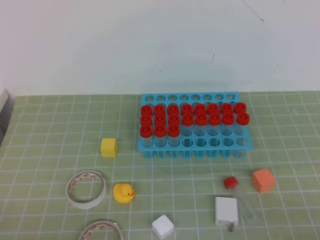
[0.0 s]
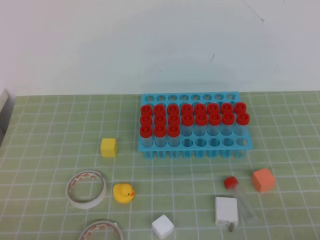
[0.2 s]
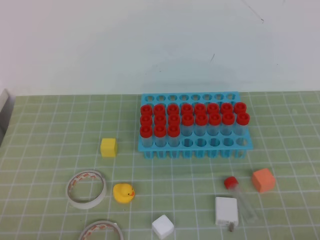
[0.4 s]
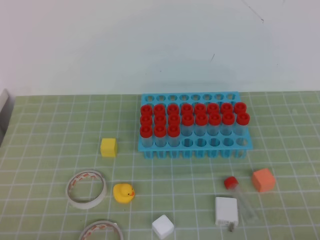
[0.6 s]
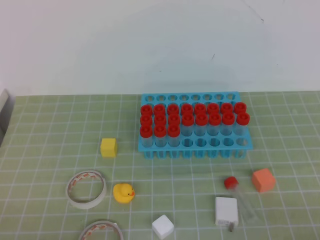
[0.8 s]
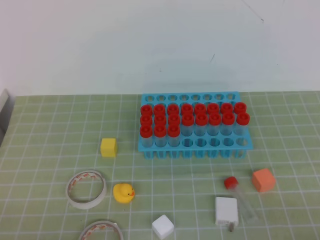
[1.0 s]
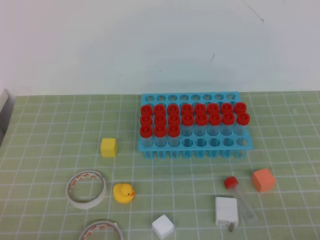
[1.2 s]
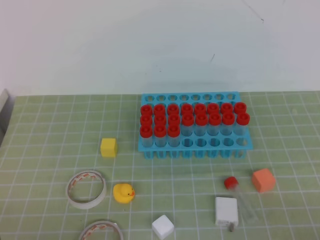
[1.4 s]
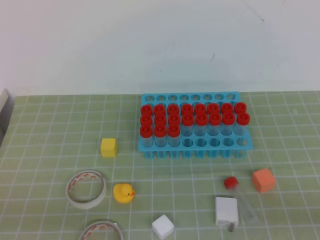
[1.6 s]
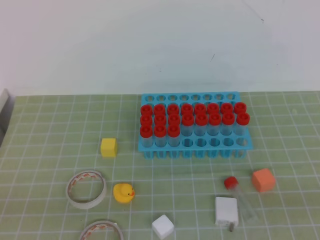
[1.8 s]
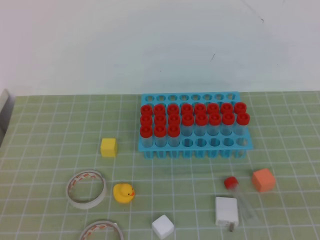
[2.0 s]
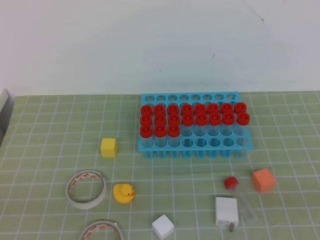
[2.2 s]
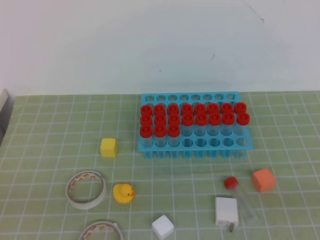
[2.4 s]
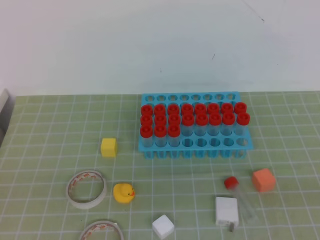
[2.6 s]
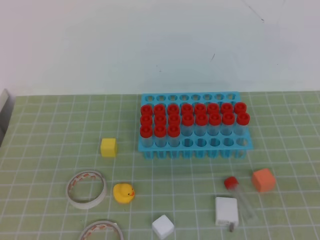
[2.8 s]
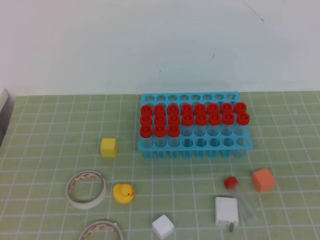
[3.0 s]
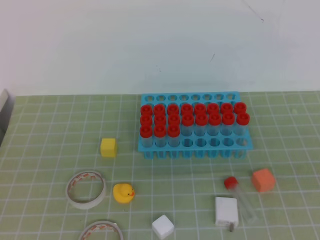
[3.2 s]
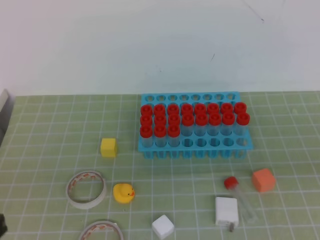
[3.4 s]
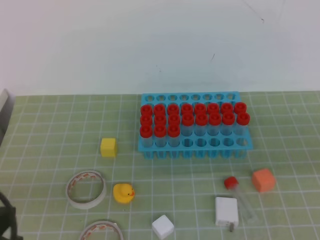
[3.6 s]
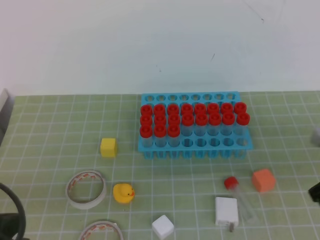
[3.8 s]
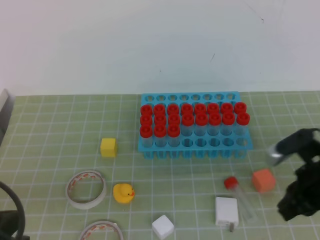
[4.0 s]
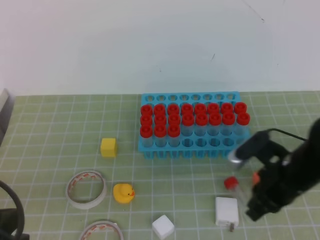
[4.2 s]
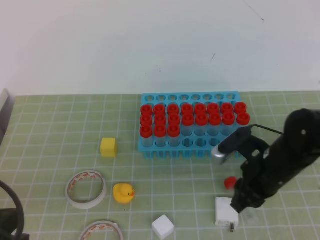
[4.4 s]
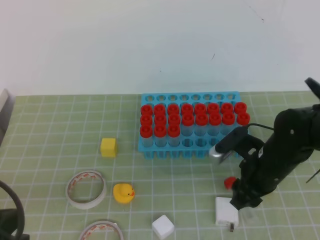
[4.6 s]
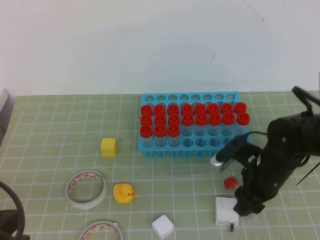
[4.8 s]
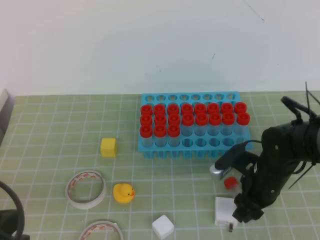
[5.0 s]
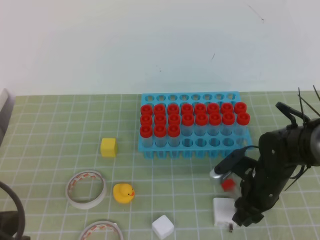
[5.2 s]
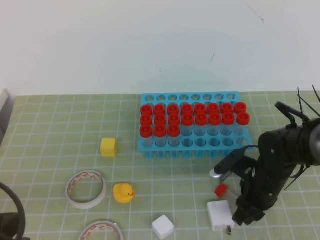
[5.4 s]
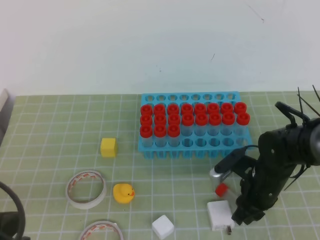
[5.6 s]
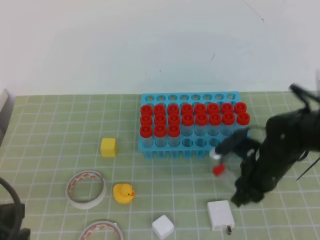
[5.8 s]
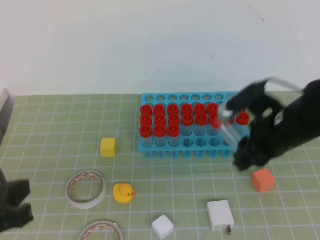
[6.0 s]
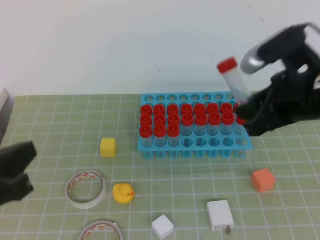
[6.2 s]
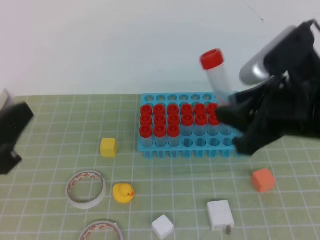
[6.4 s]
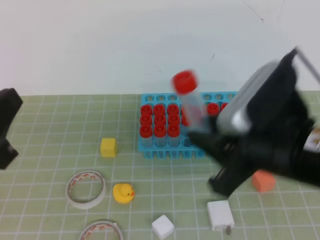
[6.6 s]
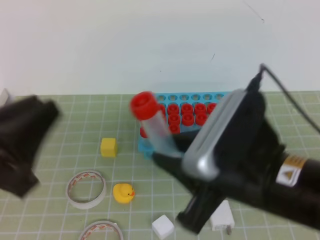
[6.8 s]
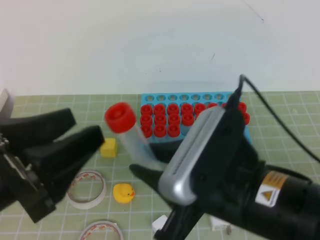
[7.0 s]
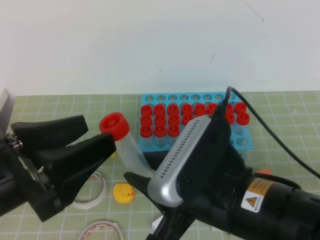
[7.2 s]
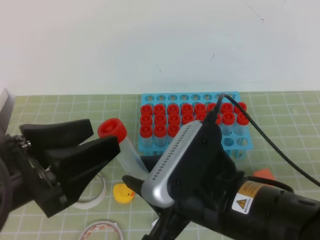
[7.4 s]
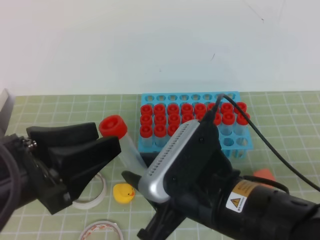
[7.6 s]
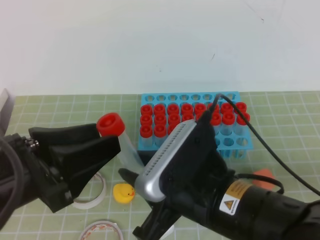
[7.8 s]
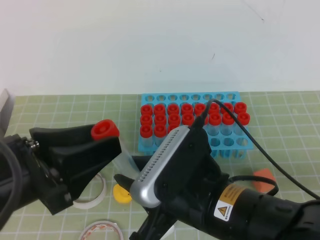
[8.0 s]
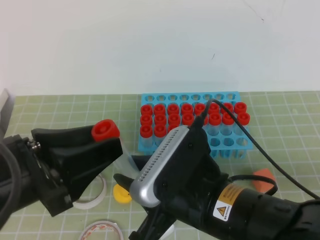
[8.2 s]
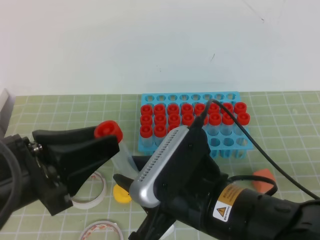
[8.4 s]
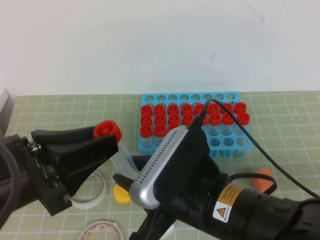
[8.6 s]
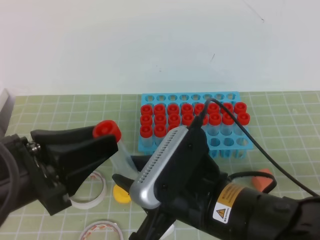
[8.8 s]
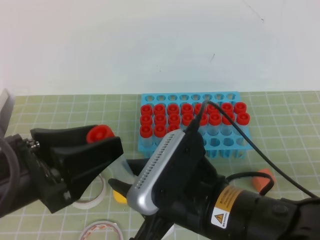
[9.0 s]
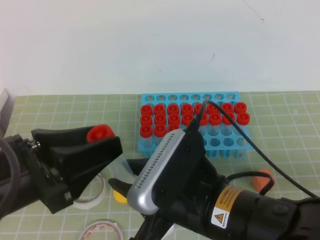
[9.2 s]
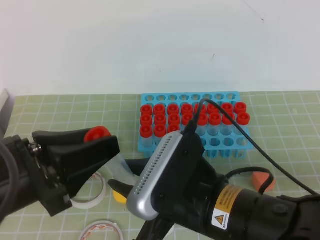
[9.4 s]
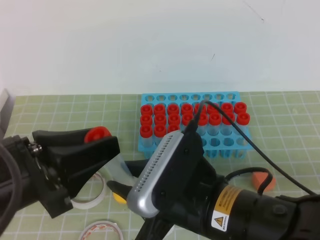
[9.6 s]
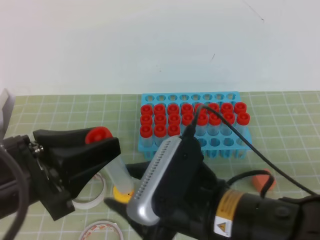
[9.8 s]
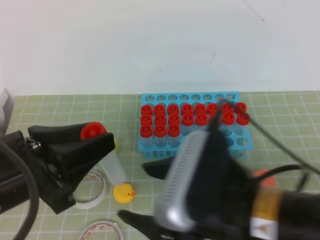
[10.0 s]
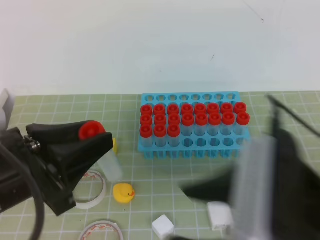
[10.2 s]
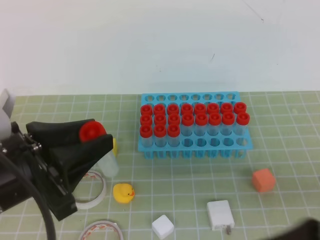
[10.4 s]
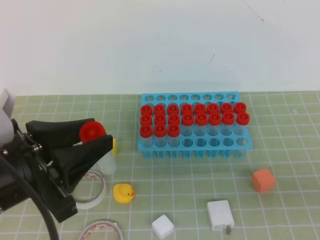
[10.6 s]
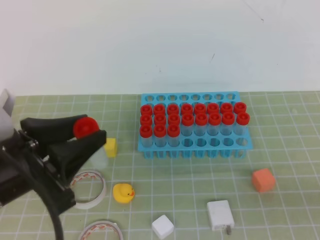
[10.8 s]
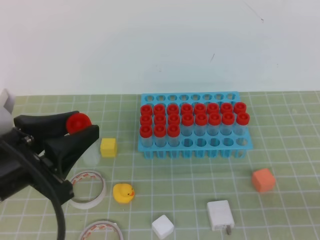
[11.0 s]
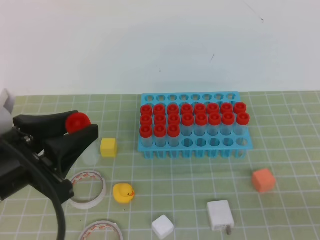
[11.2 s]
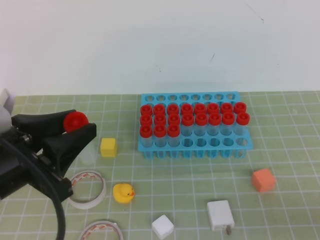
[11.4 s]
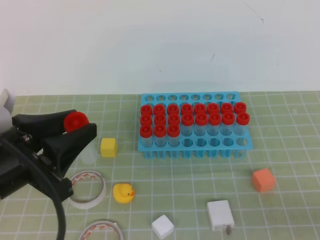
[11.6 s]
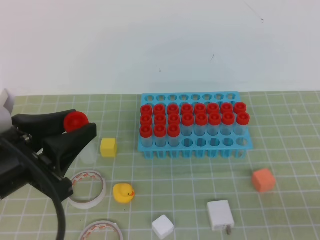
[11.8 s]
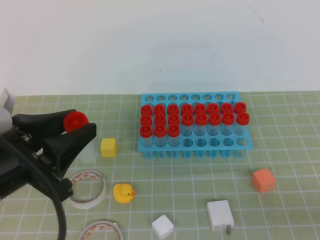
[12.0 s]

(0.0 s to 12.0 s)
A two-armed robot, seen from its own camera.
3.0 s - 4.4 s: The right gripper travels forward, to the left and downward by roughly 30 cm, and opens its fingers; the left gripper shifts some 10 cm downward and forward.
4.4 s - 6.0 s: The right gripper heads upward, covering approximately 5 cm.
6.0 s - 7.6 s: The right gripper goes approximately 20 cm backward, to the left and upward; the left gripper ends up about 5 cm from where it was, and opens.
7.6 s - 9.0 s: The grippers make only small movements.
9.0 s - 10.4 s: The right gripper is displaced to the right, backward and upward by about 15 cm, and opens, then closes once more.
10.4 s - 12.0 s: The right gripper travels to the right and backward by roughly 10 cm, and closes up.

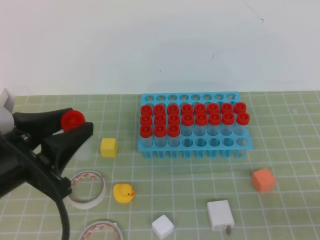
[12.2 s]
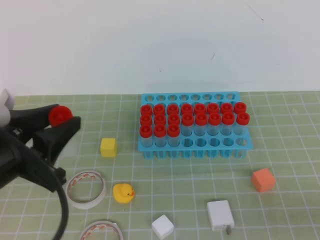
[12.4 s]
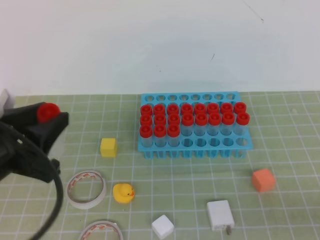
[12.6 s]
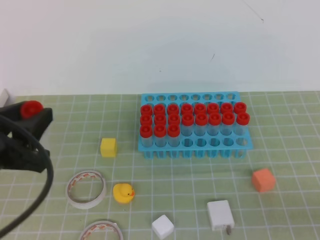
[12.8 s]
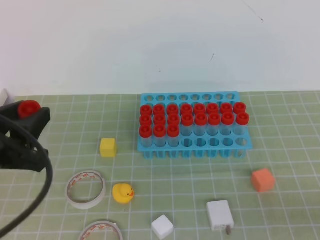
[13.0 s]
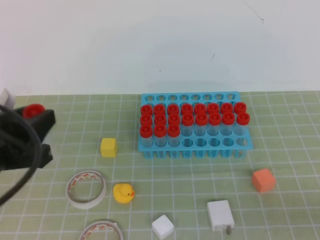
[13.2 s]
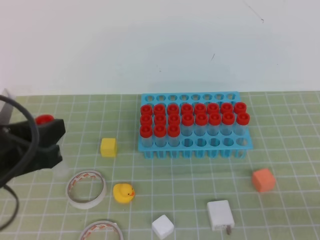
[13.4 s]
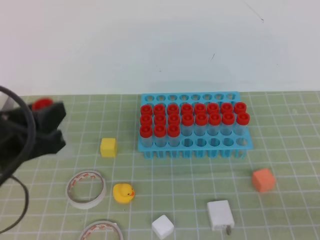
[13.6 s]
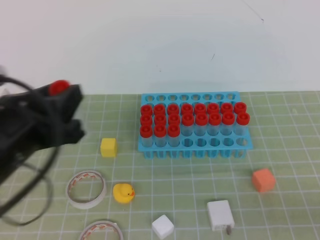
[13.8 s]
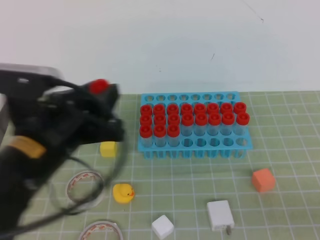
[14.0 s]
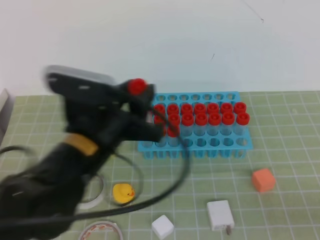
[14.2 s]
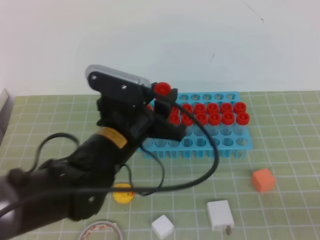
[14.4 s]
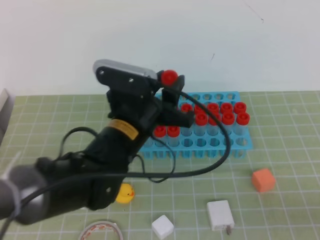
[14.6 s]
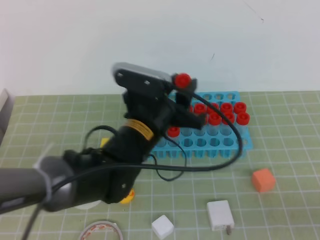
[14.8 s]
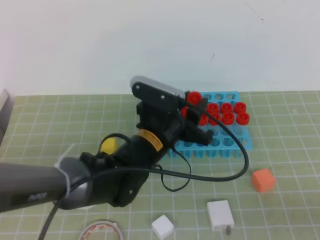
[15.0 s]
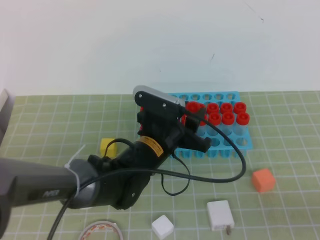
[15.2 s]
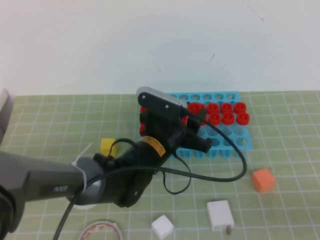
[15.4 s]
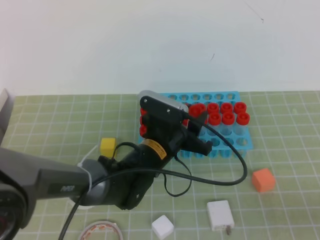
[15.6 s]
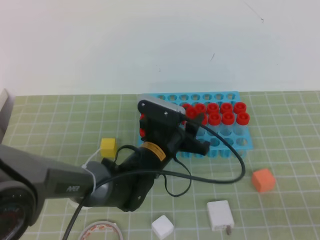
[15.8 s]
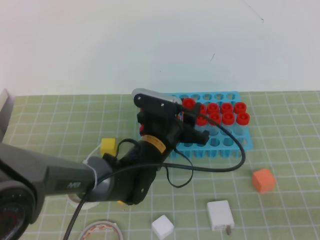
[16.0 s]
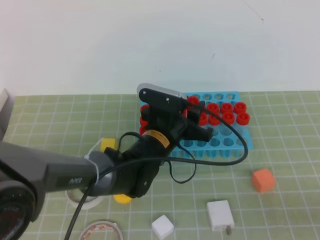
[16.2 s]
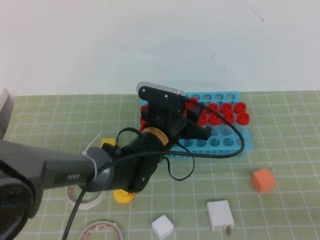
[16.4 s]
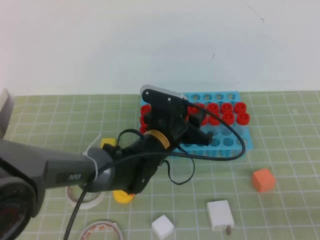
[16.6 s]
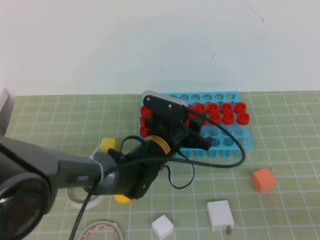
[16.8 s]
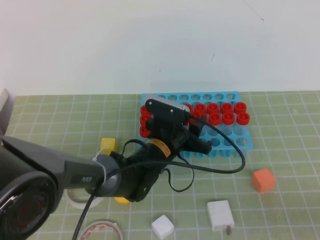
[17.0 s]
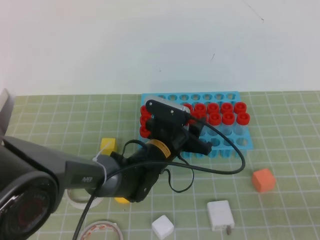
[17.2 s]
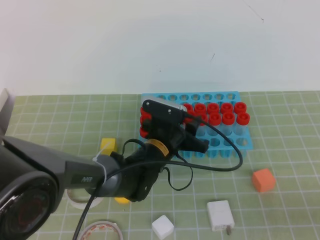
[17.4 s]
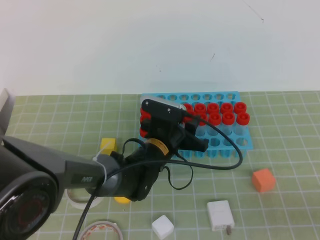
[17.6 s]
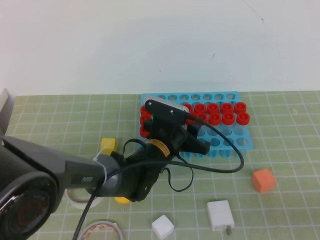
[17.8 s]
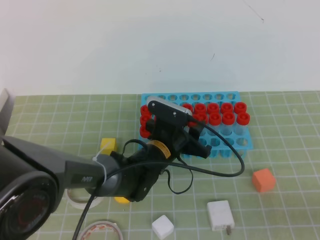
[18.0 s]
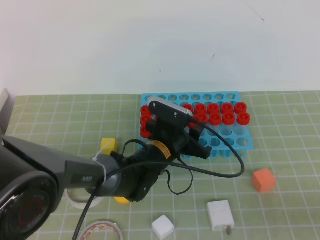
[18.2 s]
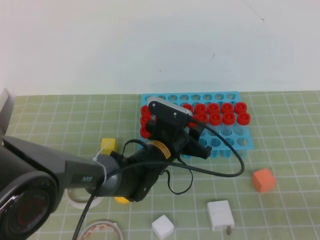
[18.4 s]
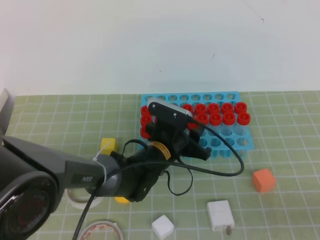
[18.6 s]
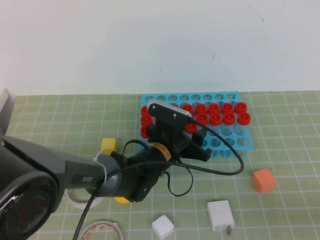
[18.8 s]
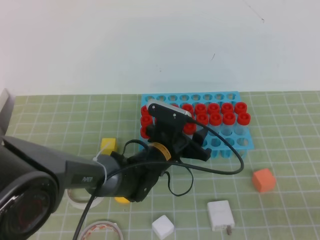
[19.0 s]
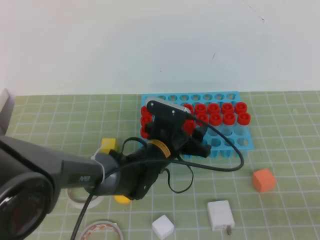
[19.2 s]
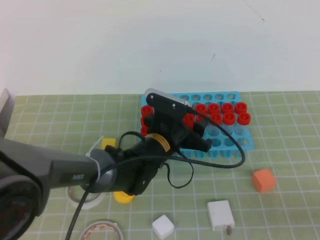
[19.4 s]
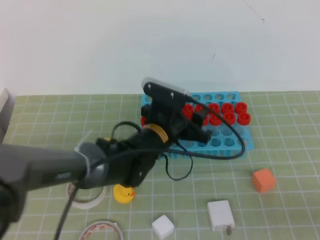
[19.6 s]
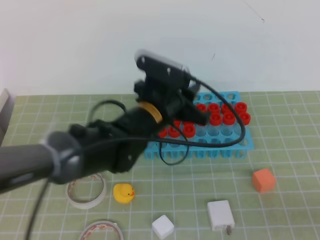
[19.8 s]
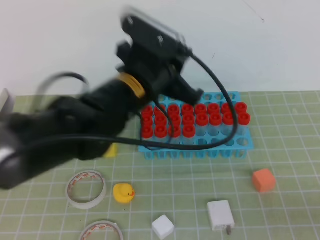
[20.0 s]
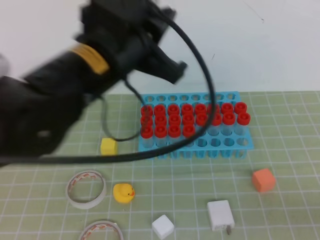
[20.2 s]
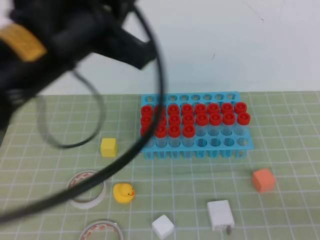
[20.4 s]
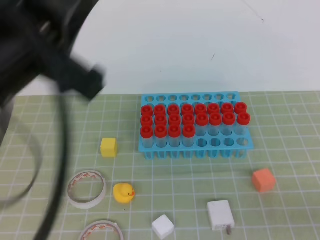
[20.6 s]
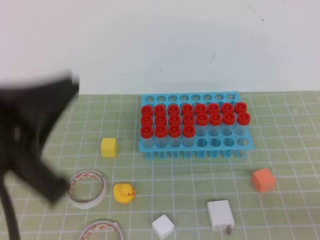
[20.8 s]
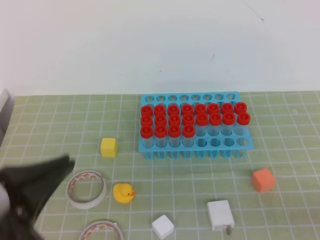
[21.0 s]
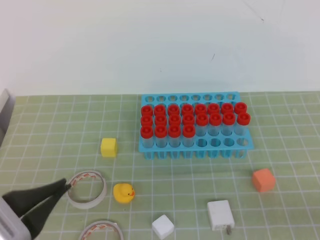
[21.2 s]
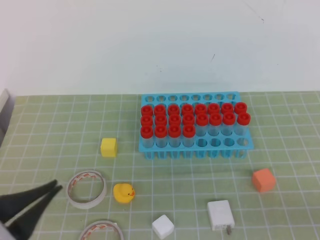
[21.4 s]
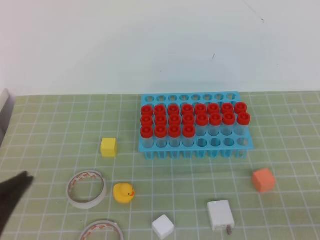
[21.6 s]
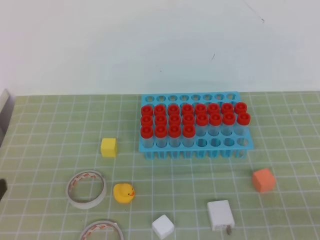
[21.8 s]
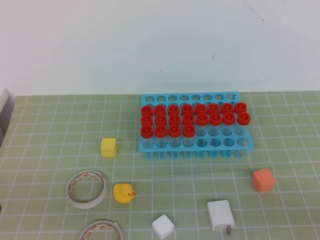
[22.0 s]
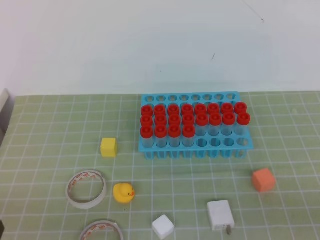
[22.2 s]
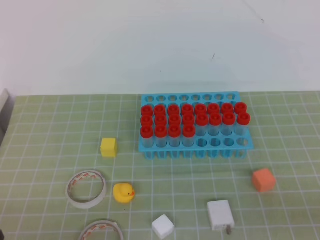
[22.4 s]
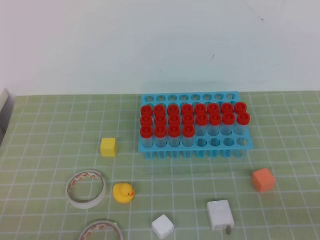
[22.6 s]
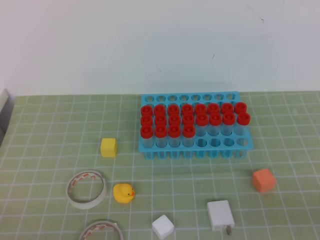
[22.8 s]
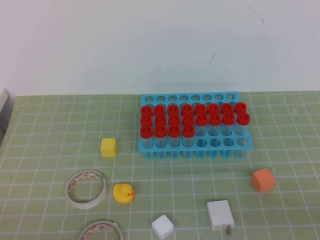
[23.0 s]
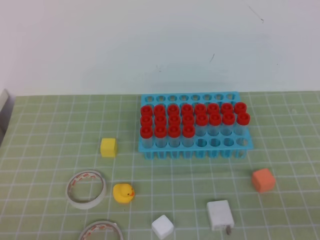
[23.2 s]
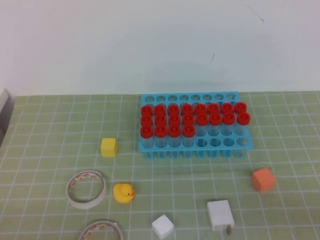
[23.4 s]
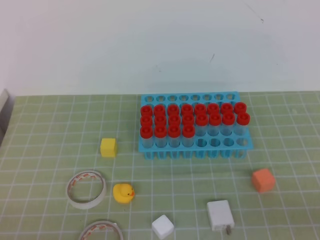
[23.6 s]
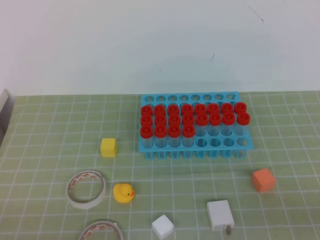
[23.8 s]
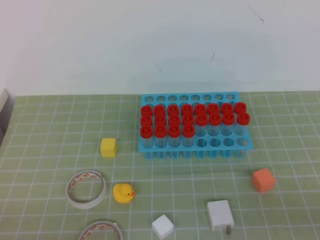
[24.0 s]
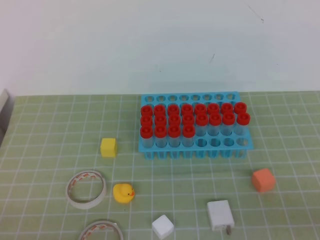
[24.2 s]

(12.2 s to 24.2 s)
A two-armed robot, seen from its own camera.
13.8 s - 15.2 s: The left gripper is displaced to the right, forward and downward by roughly 25 cm.
15.2 s - 16.6 s: The grippers stay close to where they were, moving slightly.
16.6 s - 18.2 s: The grippers make only small movements.
18.2 s - 19.8 s: The left gripper heads upward, covering roughly 10 cm, and opens and closes again.
19.8 s - 21.2 s: The left gripper is displaced backward and to the left by approximately 30 cm, and closes.
21.2 s - 22.6 s: The left gripper is displaced downward and to the left by approximately 15 cm.
